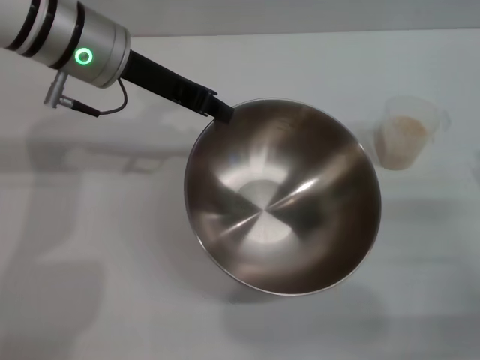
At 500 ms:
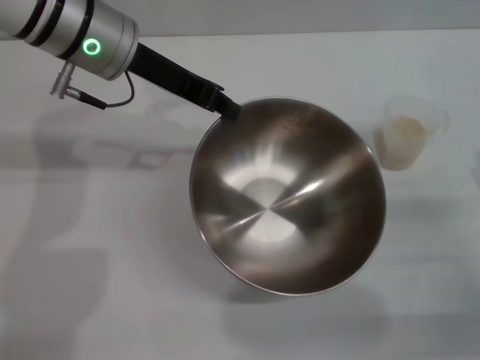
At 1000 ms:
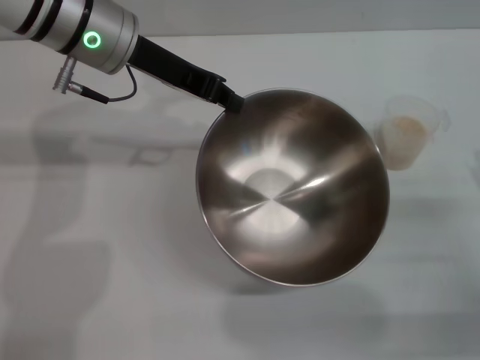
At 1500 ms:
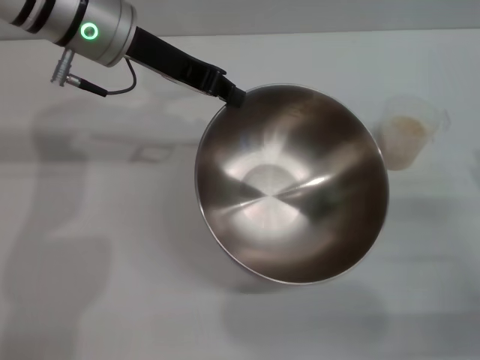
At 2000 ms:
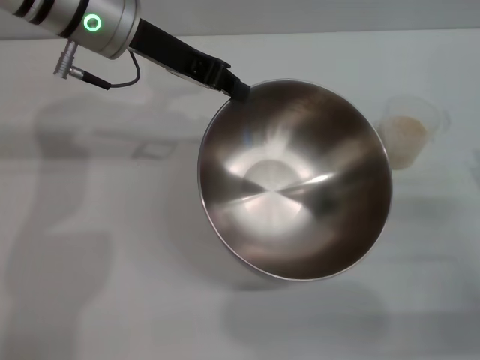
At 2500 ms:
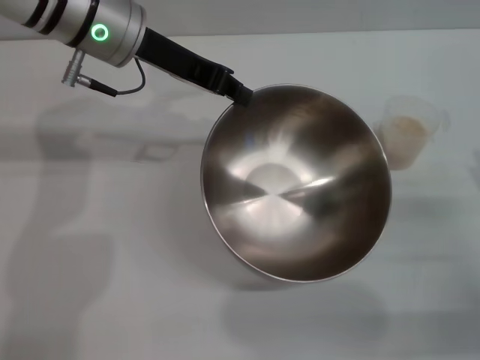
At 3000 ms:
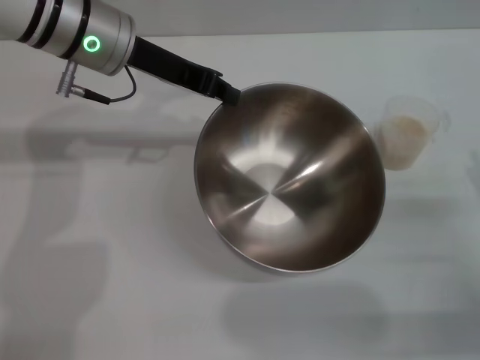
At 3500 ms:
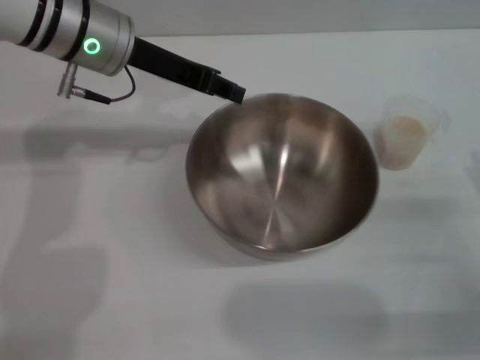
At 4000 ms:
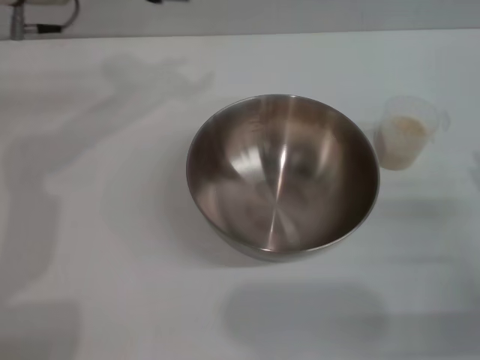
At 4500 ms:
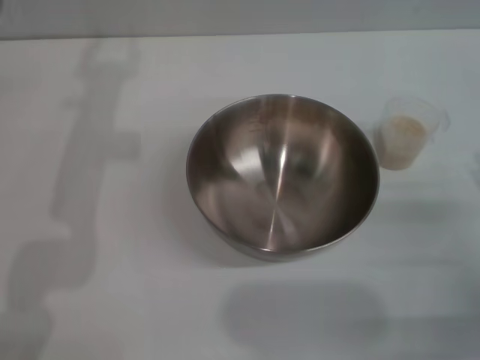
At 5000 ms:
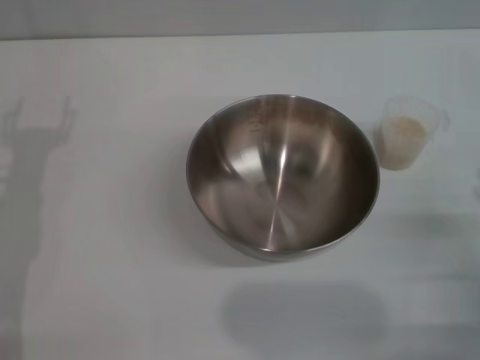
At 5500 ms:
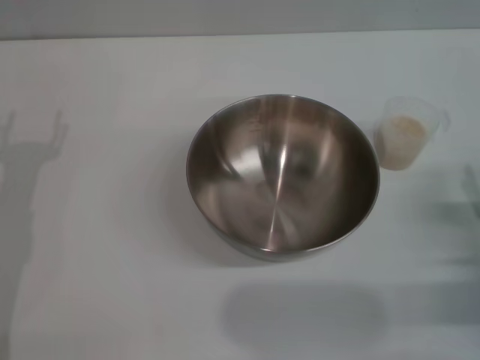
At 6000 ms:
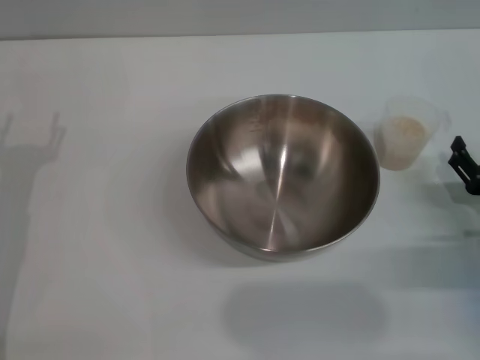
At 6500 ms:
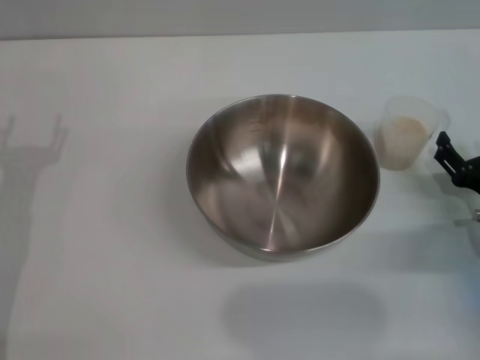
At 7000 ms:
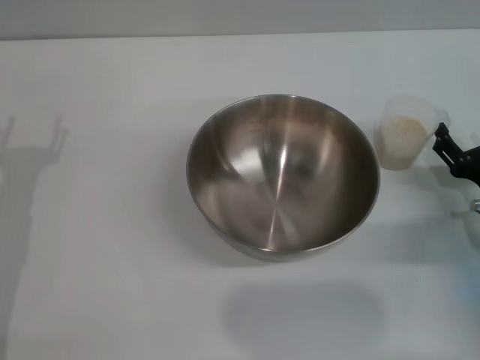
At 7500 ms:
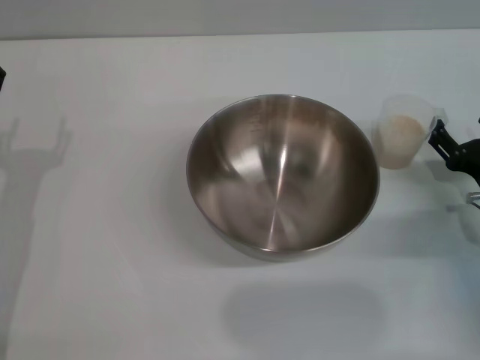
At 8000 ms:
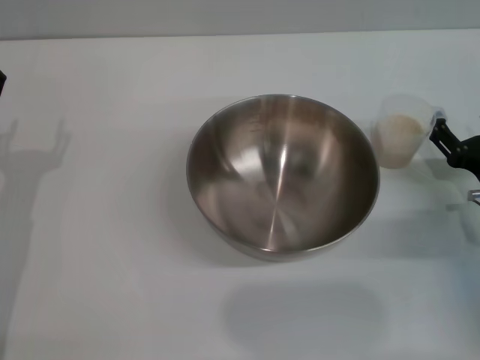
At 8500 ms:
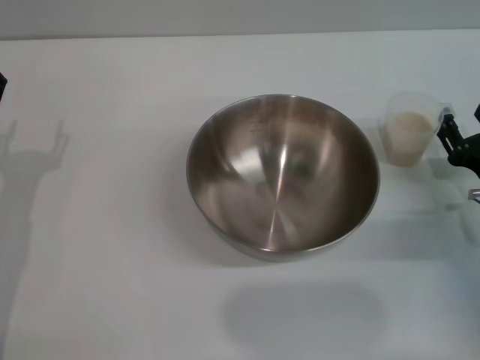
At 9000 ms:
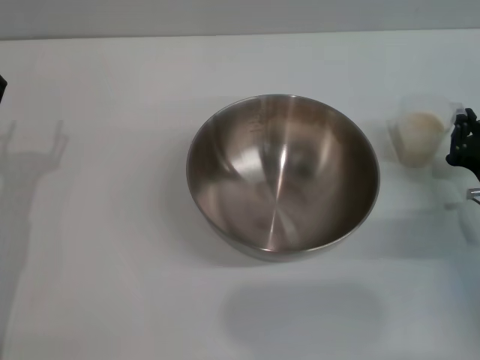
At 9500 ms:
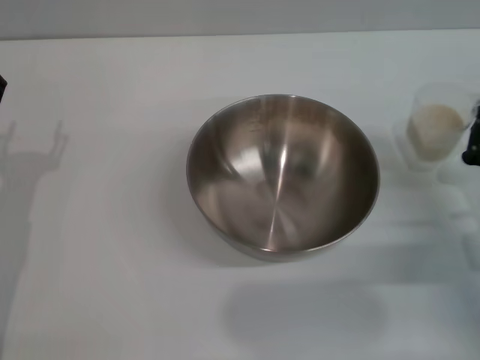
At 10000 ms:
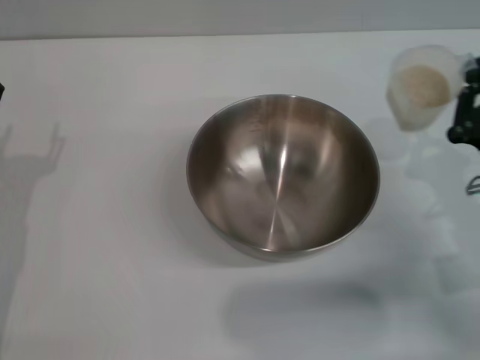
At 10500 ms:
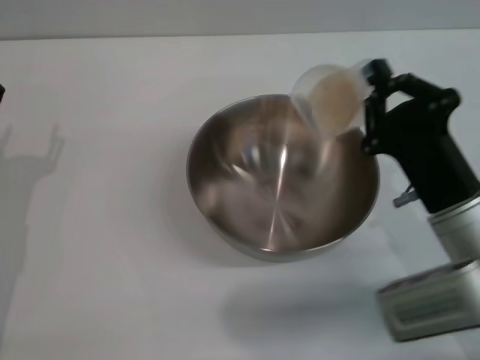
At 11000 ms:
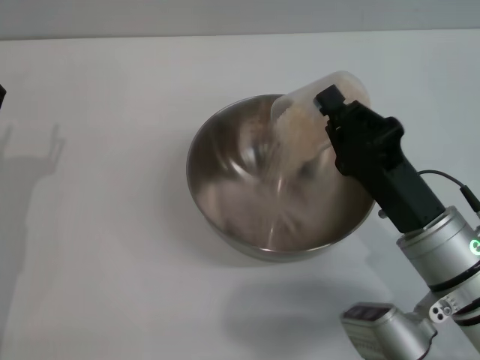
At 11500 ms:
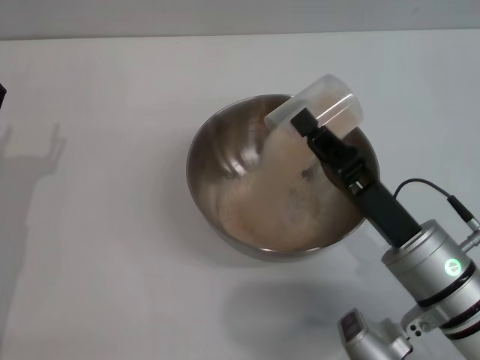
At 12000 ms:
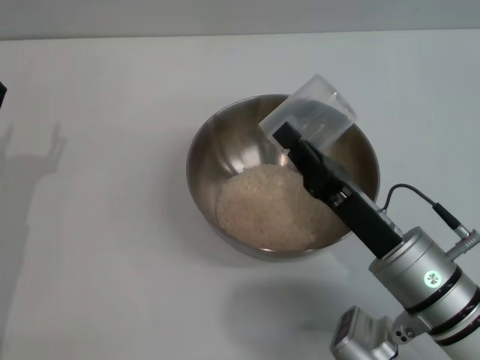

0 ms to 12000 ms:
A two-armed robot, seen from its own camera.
Task of the whole recording: Place the bowl in the middle of the table with one hand and pour the rice from the grain cup into it with the other hand.
Step, 0 ms to 3500 ms: Place the bowl in the center of view with the left gripper.
Step, 4000 ms to 9500 ms: Pick up the cup with rice in it with the right gripper.
2000 ms to 4000 ms: The left gripper opens its fingers.
4000 ms to 6000 ms: The right gripper moves approximately 5 cm. Meanwhile the left gripper moves downward, backward and to the left, about 25 cm, and opens its fingers.
6000 ms to 8000 ms: The grippers move only a little.
8000 ms to 10000 ms: The right gripper changes place by about 5 cm, and closes.
10000 ms to 12000 ms: The right gripper moves to the left, roughly 10 cm.

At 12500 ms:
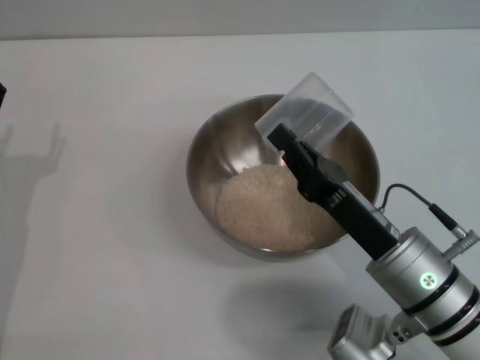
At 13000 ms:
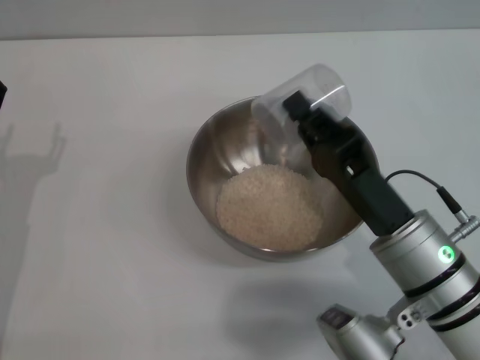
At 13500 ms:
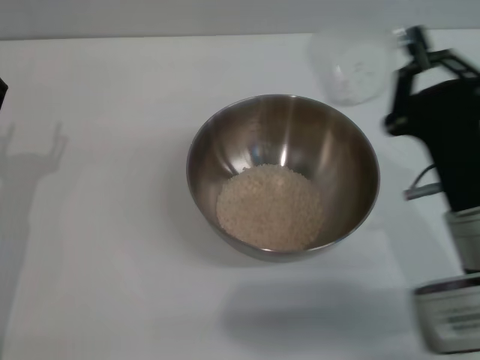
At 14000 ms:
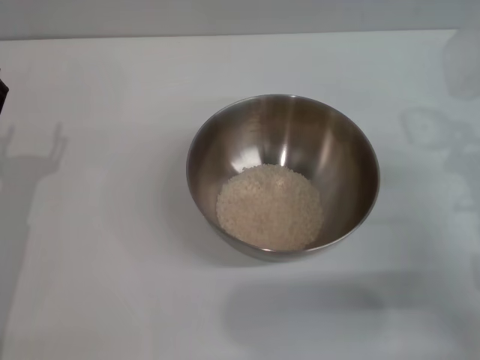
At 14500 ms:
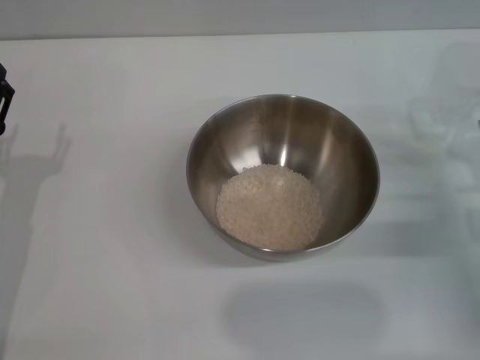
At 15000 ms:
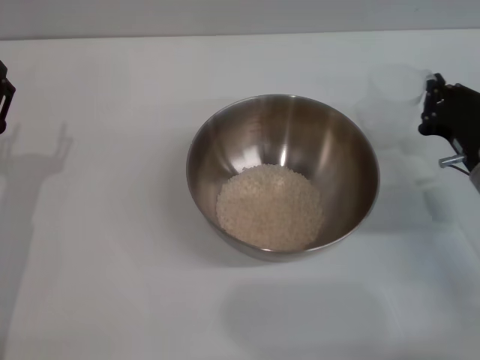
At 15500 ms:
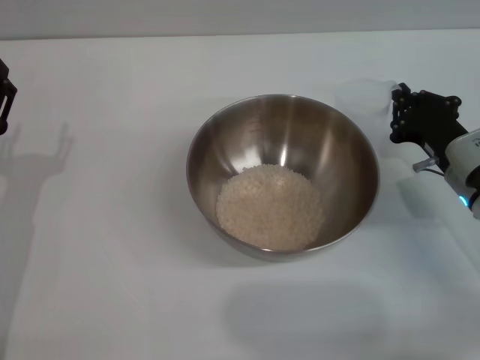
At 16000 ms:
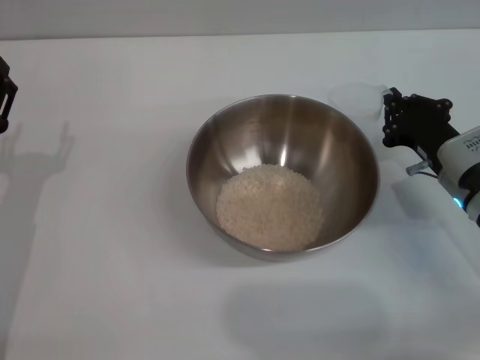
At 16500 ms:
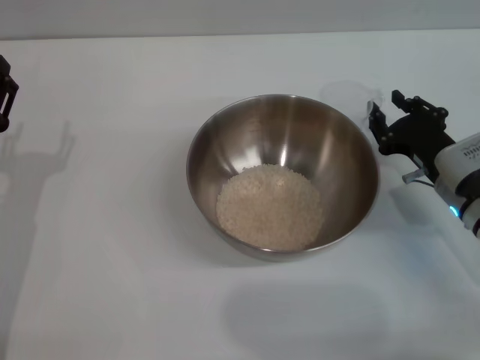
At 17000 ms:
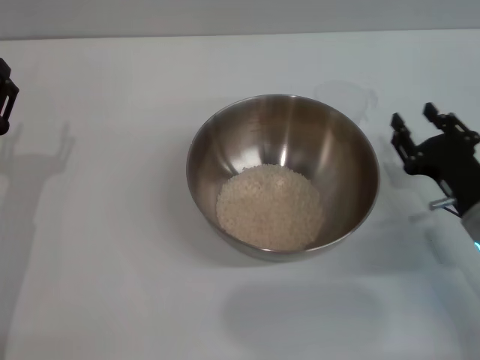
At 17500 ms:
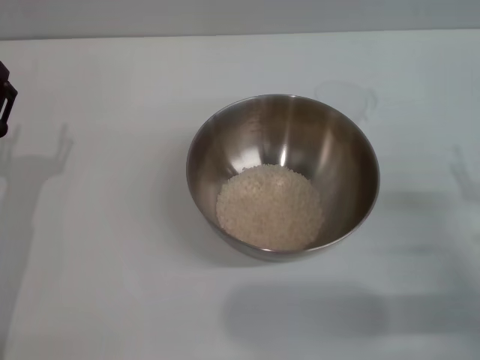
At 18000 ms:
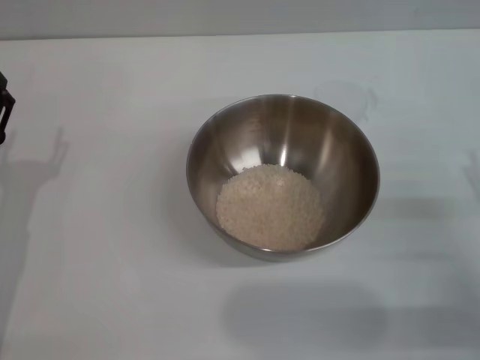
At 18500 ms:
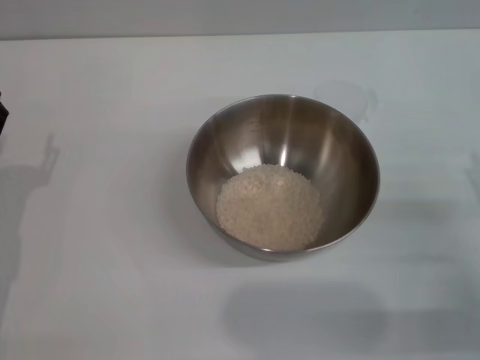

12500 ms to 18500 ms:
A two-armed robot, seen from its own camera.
Task of the whole recording: Place the bowl in the middle of the table with one hand and pour the rice from the grain cup into it with the other hand.
Step, 13500 ms to 16500 ms: Place the cup on the table with the right gripper.
12500 ms to 14500 ms: The right gripper heads to the right and forward, covering approximately 15 cm.
14500 ms to 16500 ms: The right gripper goes approximately 5 cm to the left.
16500 ms to 18500 ms: The right gripper heads backward and to the right, covering roughly 15 cm, and opens its fingers.
